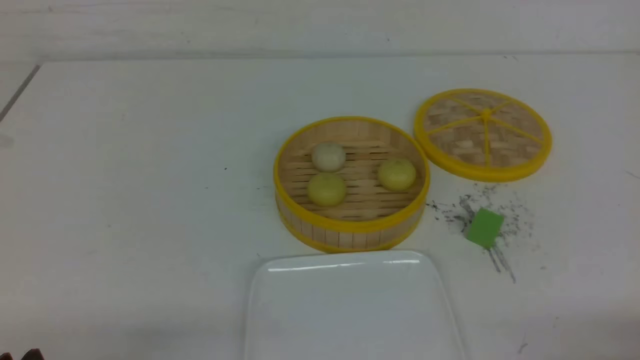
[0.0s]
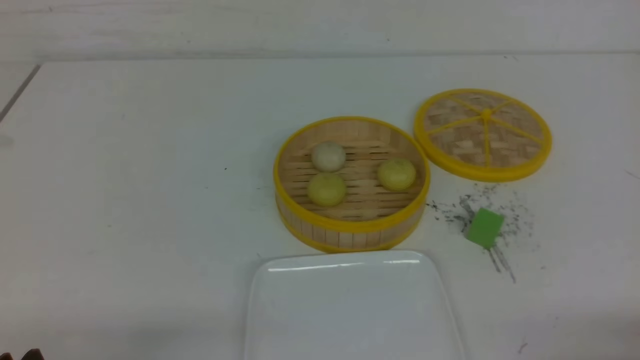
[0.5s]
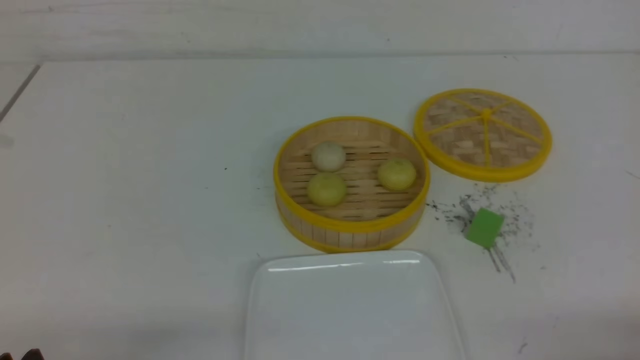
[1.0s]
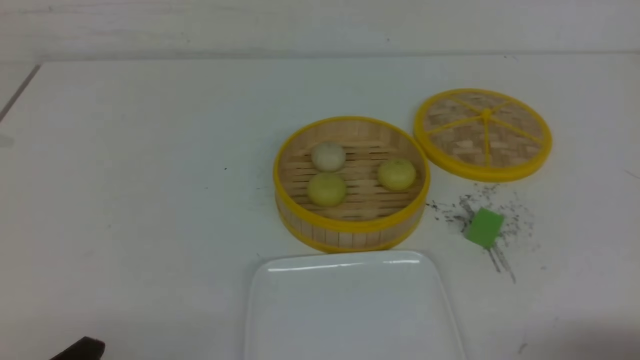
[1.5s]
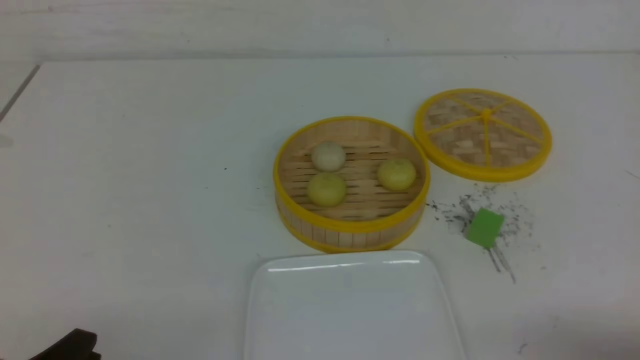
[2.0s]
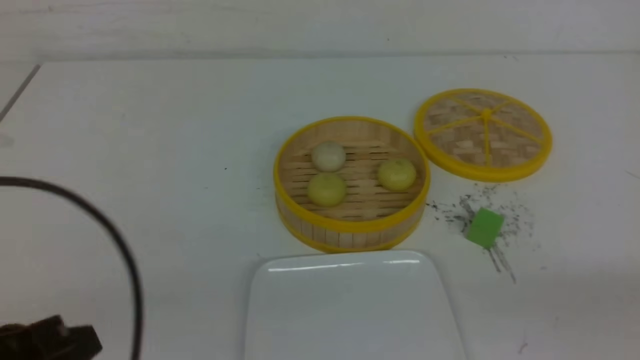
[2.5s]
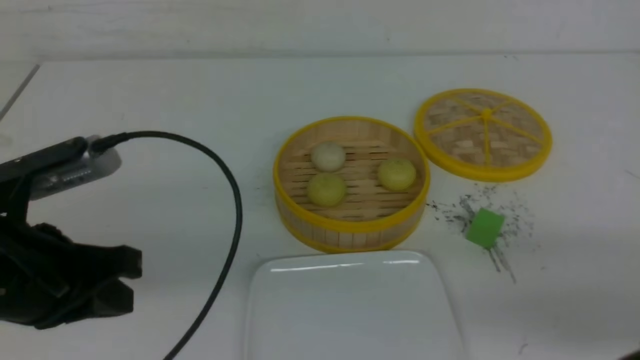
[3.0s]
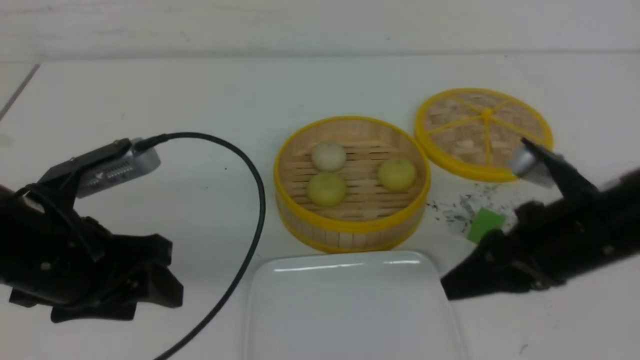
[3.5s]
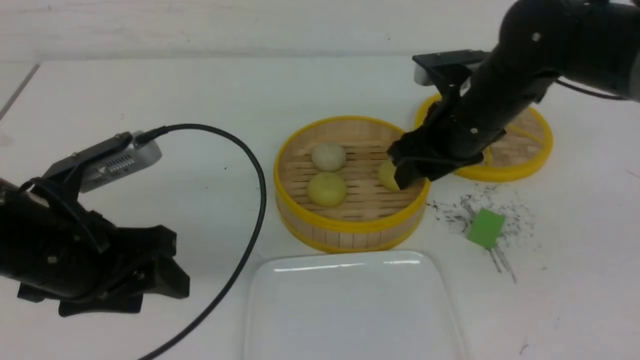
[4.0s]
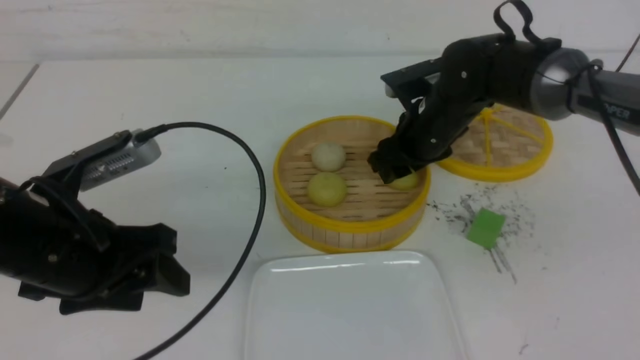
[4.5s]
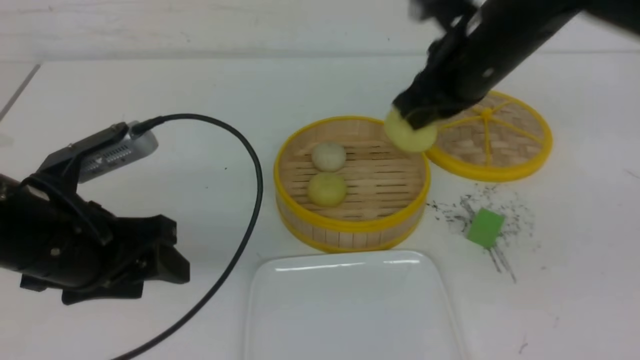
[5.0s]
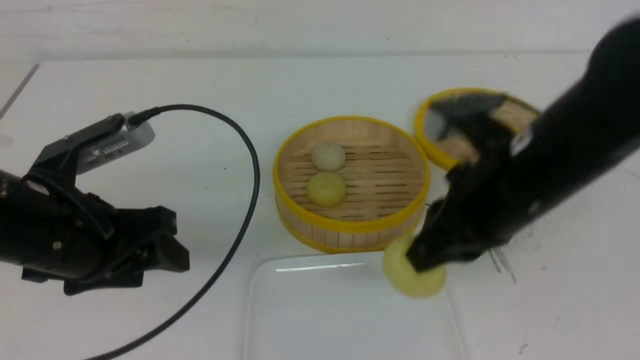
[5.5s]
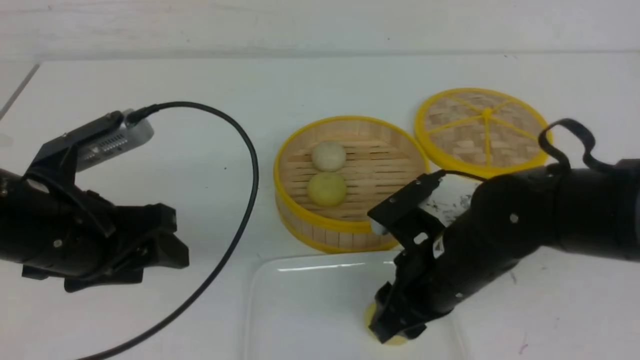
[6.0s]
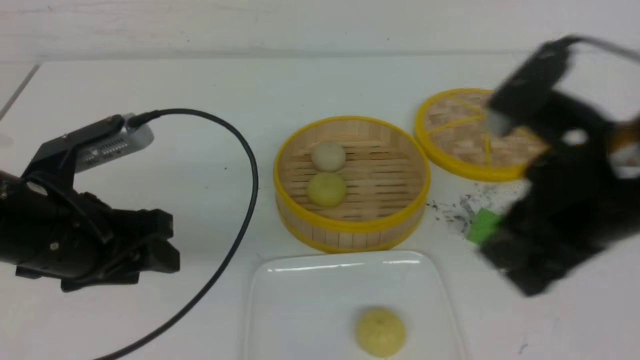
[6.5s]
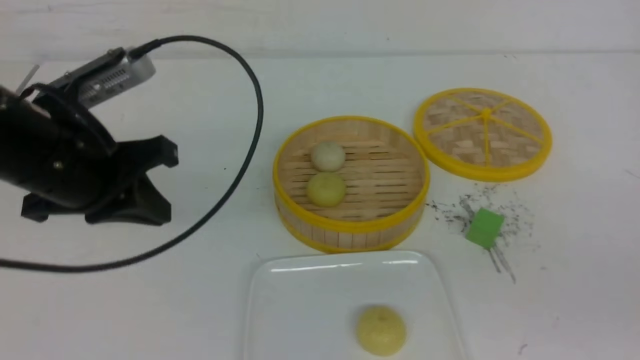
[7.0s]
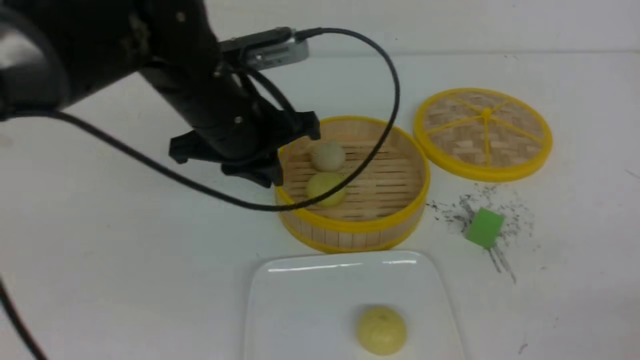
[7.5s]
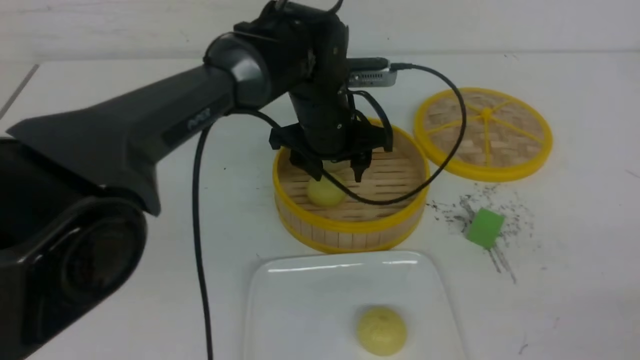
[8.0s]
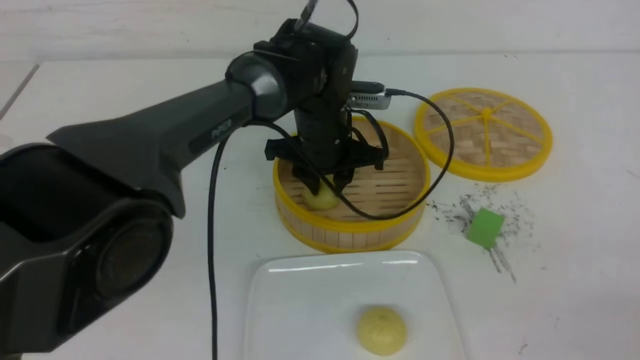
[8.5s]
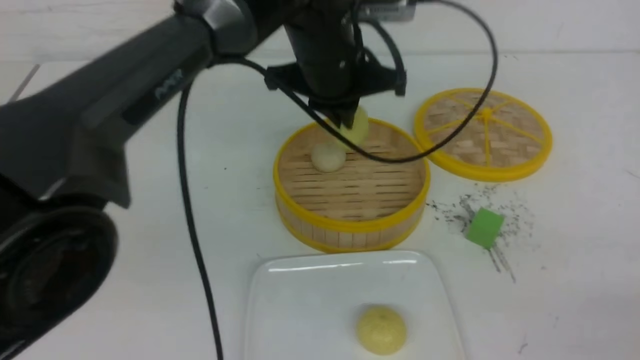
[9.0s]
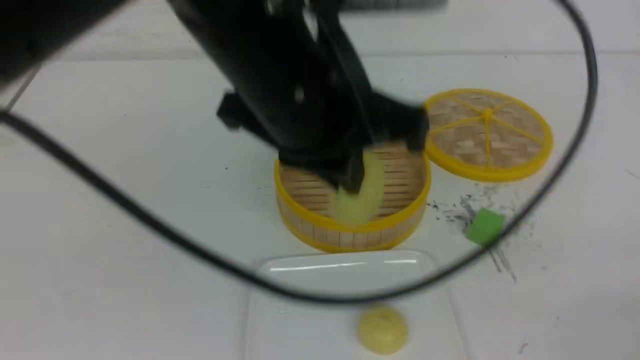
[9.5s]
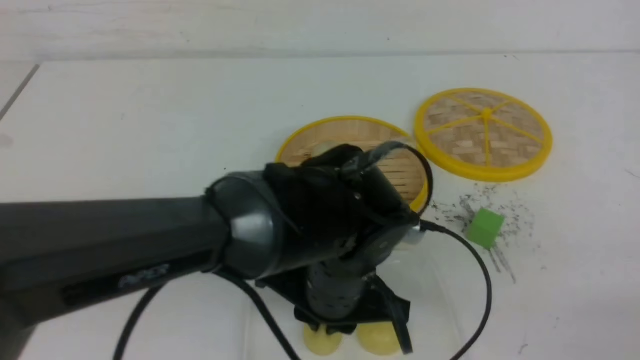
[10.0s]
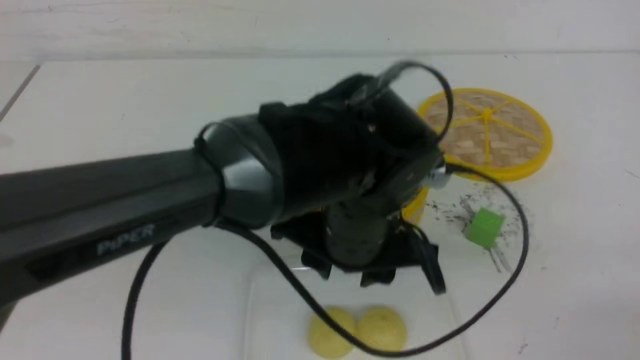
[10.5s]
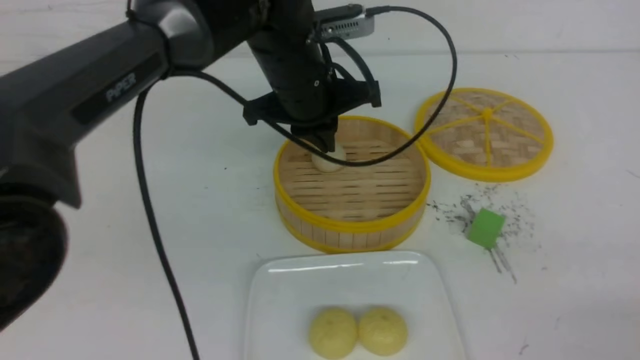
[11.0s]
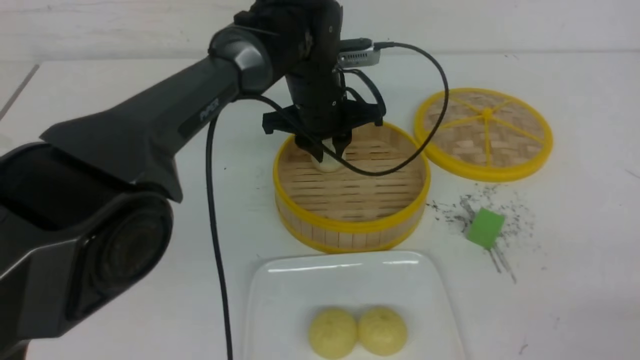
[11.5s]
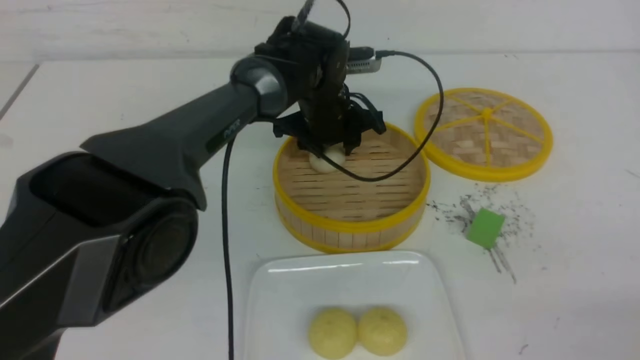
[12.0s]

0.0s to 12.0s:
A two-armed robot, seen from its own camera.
Step, 0.0s to 4.5s: use the right arm to grab the steamed stuffed bun that is closest to it.
Step, 5.0s to 6.0s: use the right arm to put the steamed stuffed bun into the plate.
Step, 6.5s to 8.5s: use the left arm to grab the steamed stuffed bun that is closest to it.
Step, 9.0s to 10.0s: use the left arm to put the steamed stuffed bun into the plate.
2.0s to 4.0s: The left gripper heads forward and upward, covering roughly 15 cm, and opens. Meanwhile the right gripper is displaced forward and to the left by approximately 35 cm, and opens its fingers.
4.0s to 6.0s: The right gripper is displaced backward and downward by about 15 cm, and closes, then reopens.
6.0s to 8.0s: The right gripper heads to the right and backward, covering about 30 cm, and closes, while the left gripper goes roughly 30 cm to the right and forward, and closes, then reopens.
8.0s to 10.0s: The left gripper shifts some 20 cm backward, and closes its fingers.
10.0s to 12.0s: The left gripper travels forward by some 25 cm.

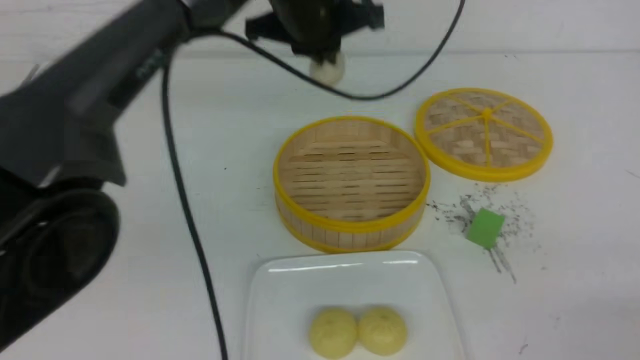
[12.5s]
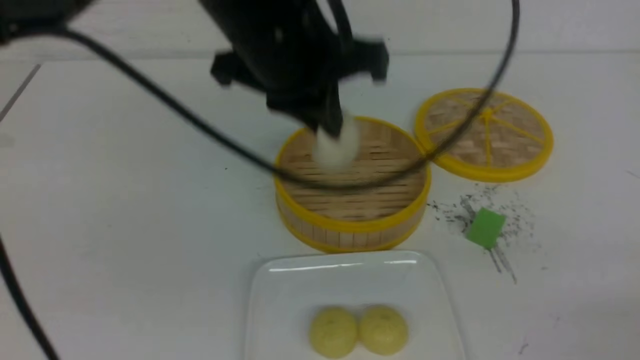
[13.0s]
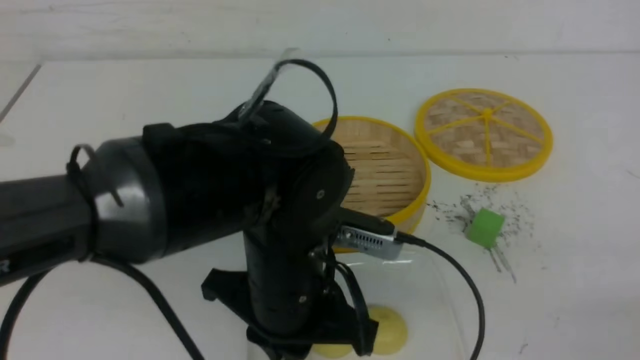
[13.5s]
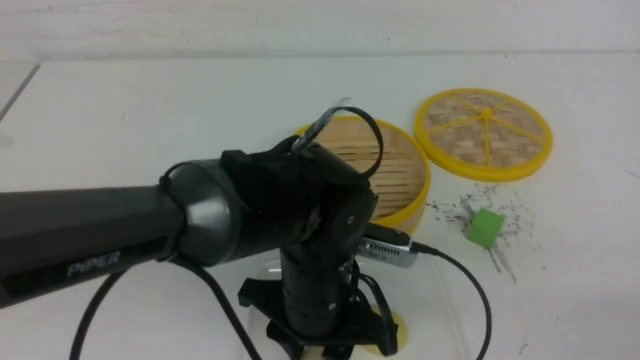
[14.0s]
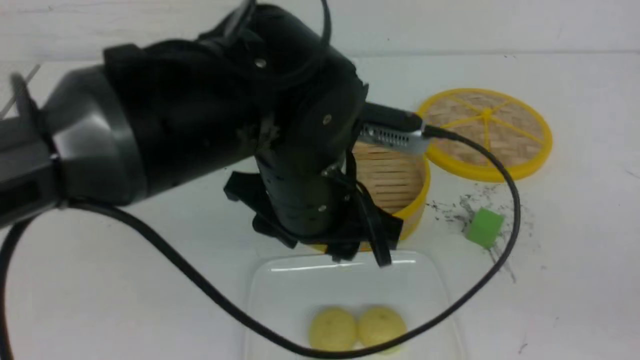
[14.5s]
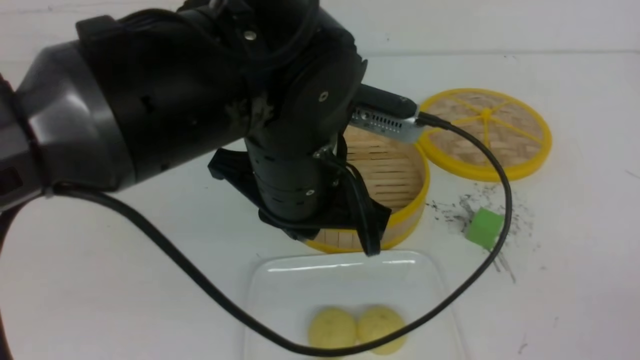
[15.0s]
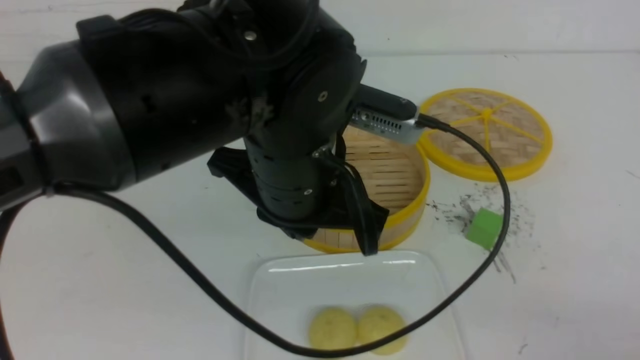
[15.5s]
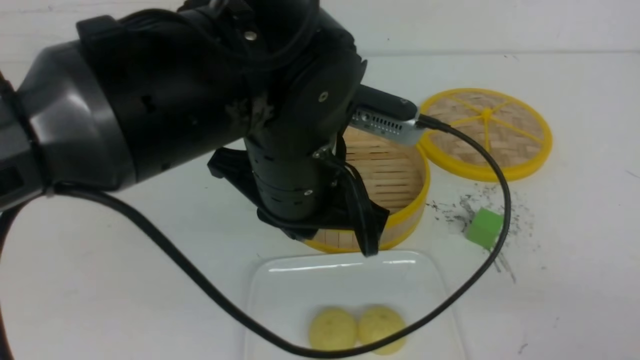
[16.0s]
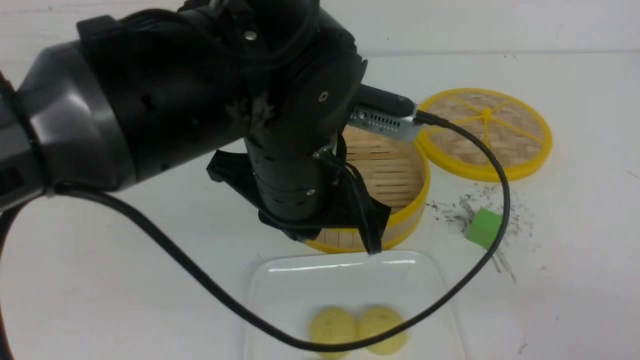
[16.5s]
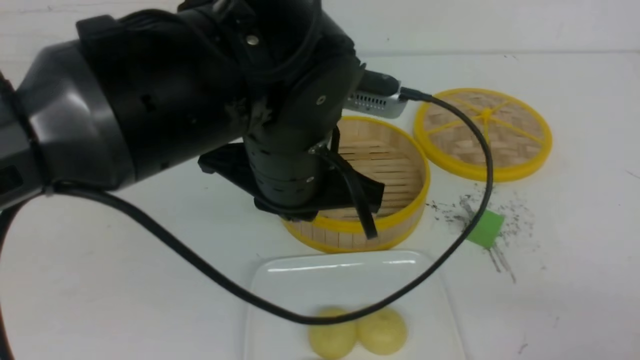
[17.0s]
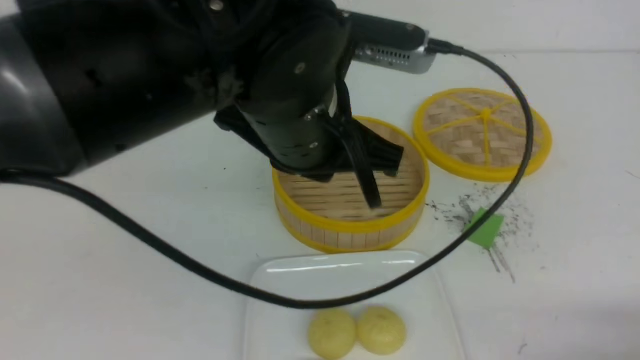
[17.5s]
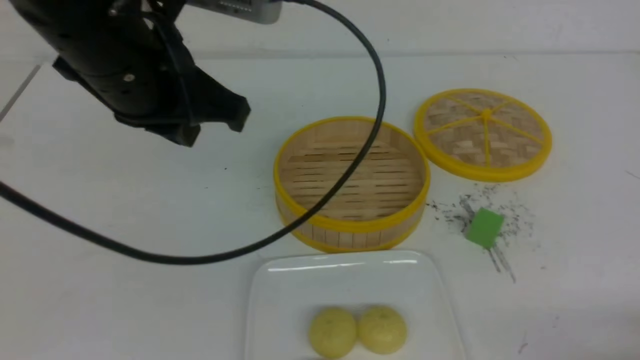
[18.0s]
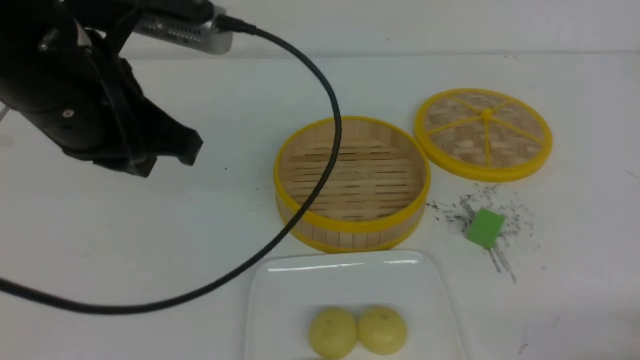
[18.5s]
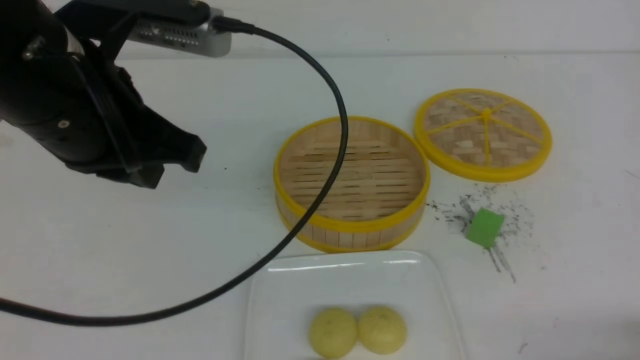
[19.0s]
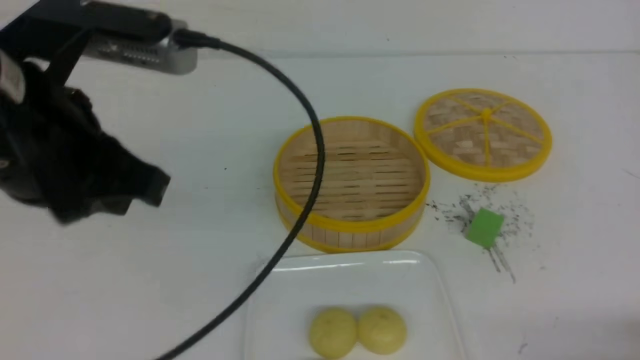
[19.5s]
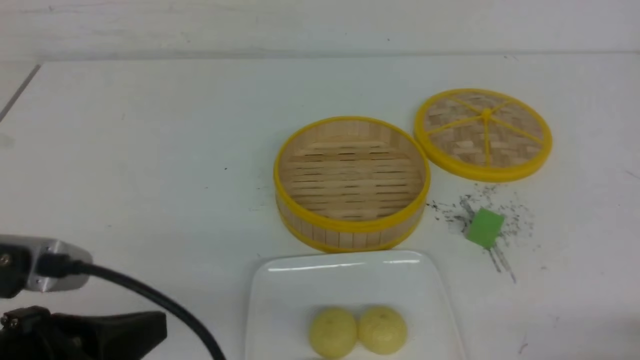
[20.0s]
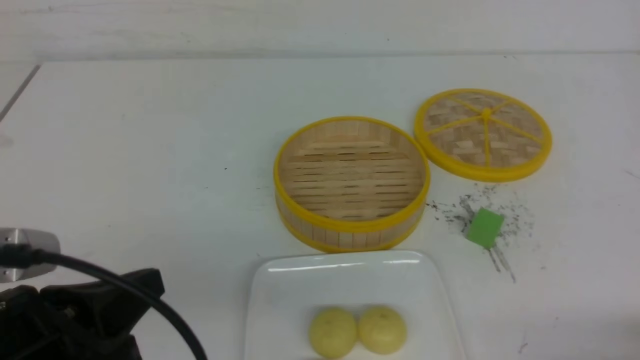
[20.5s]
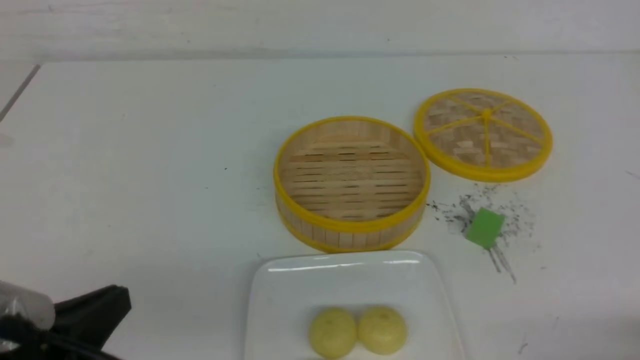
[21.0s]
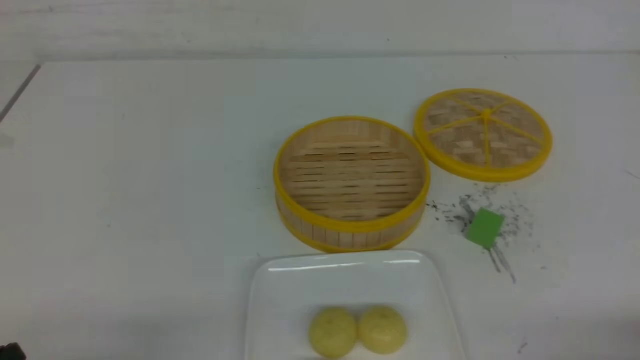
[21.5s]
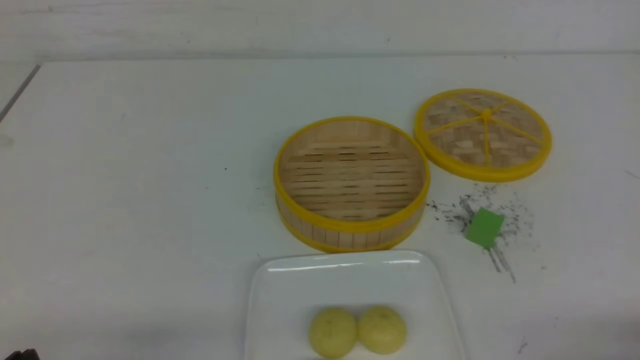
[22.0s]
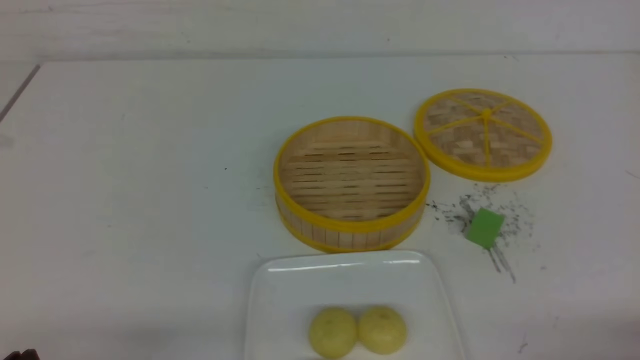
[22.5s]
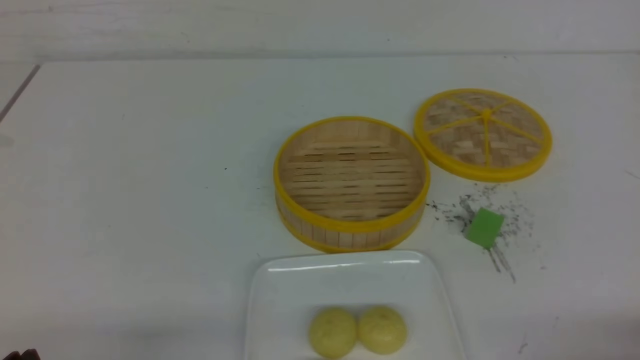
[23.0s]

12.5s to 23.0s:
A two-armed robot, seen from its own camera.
Step, 12.5s to 14.0s: use the left arm to put the steamed stuffed bun into the plate.
12.5s to 14.5s: The left gripper travels backward and downward by approximately 20 cm, and opens its fingers. Meanwhile the right gripper shifts roughly 5 cm upward.
14.5s to 16.5s: The left gripper closes, while the right gripper shifts roughly 10 cm downward and to the left.
16.5s to 19.0s: The left gripper goes some 15 cm to the left and upward; the right gripper shifts about 10 cm downward.
19.0s to 21.0s: The left gripper travels backward, downward and to the left by approximately 20 cm.
21.0s to 23.0s: The left gripper moves downward, roughly 5 cm.
